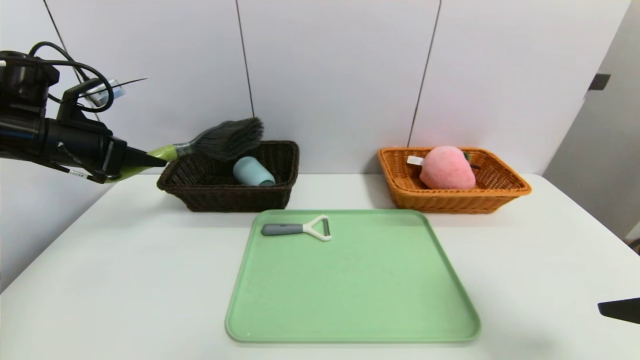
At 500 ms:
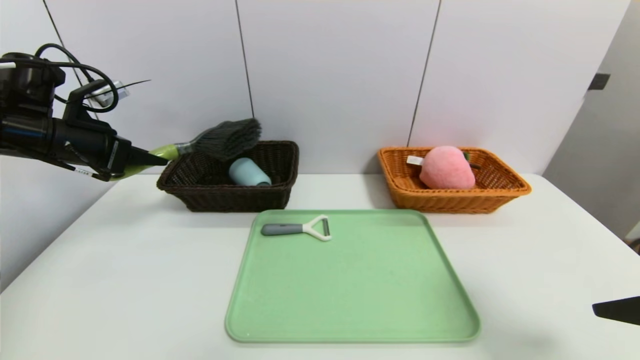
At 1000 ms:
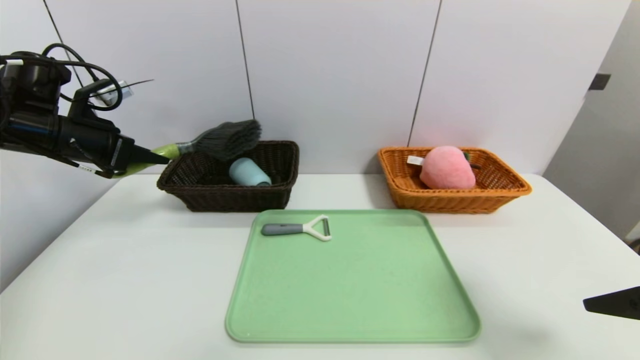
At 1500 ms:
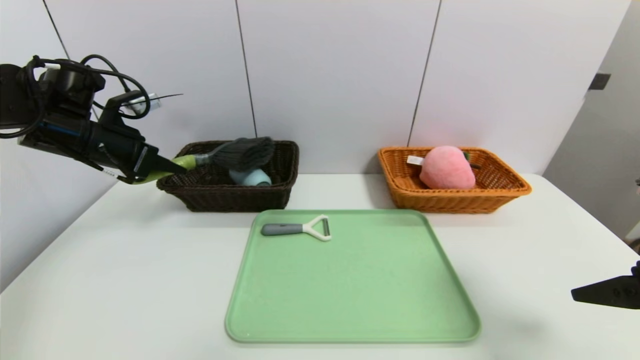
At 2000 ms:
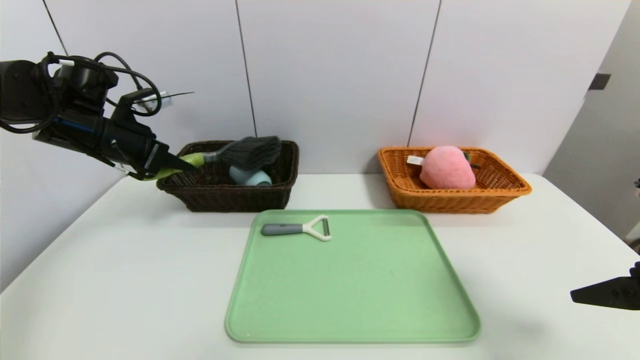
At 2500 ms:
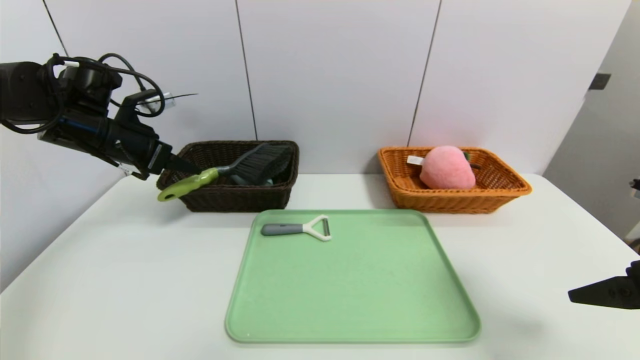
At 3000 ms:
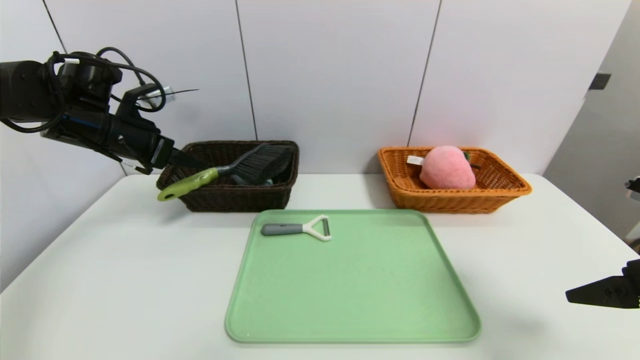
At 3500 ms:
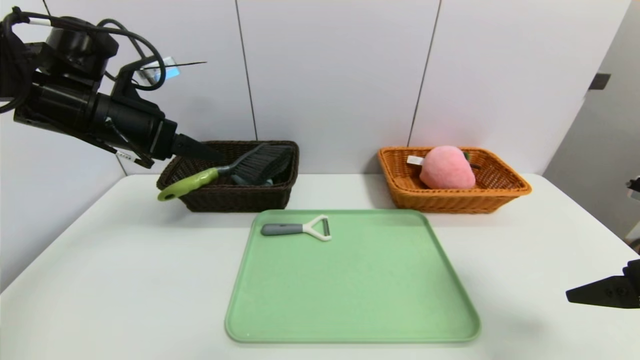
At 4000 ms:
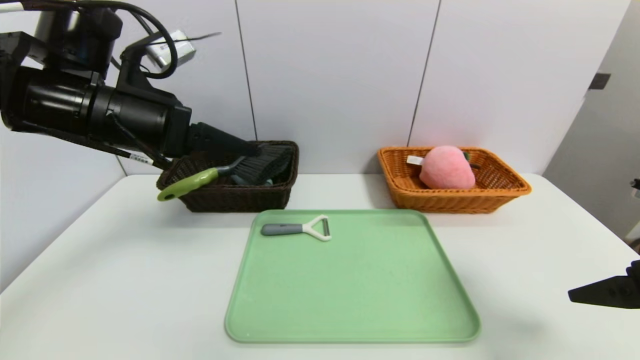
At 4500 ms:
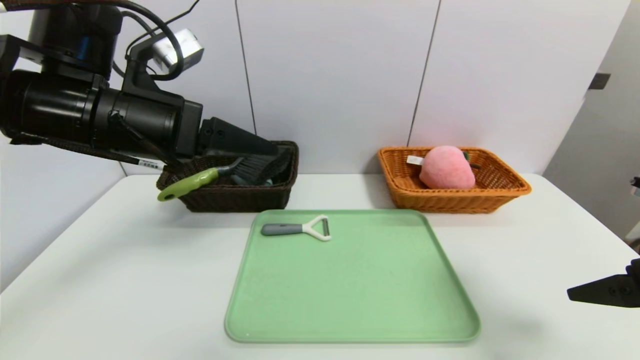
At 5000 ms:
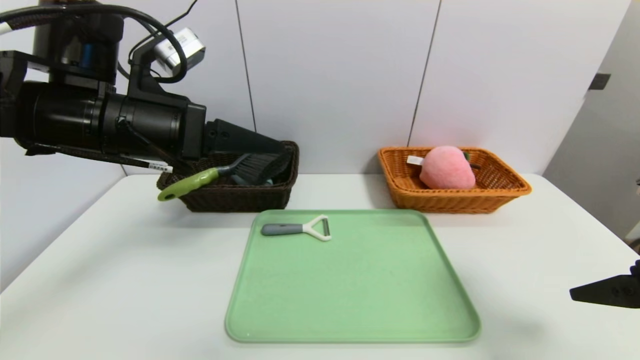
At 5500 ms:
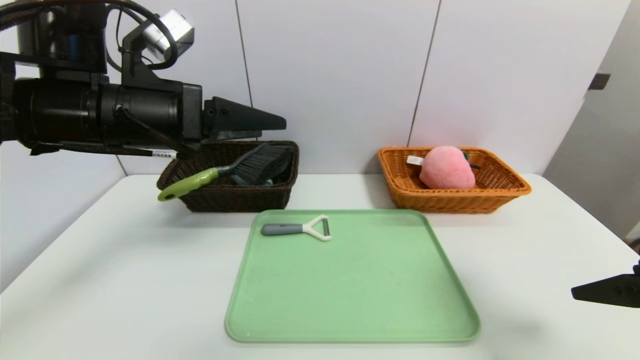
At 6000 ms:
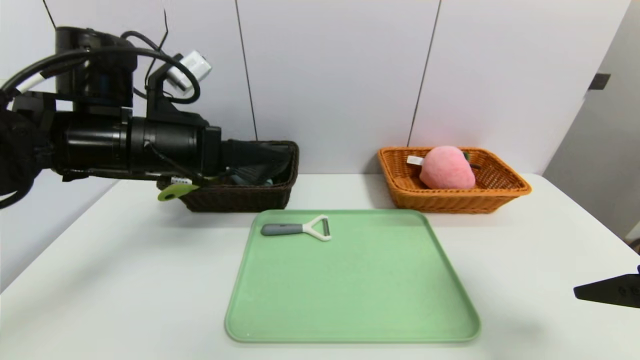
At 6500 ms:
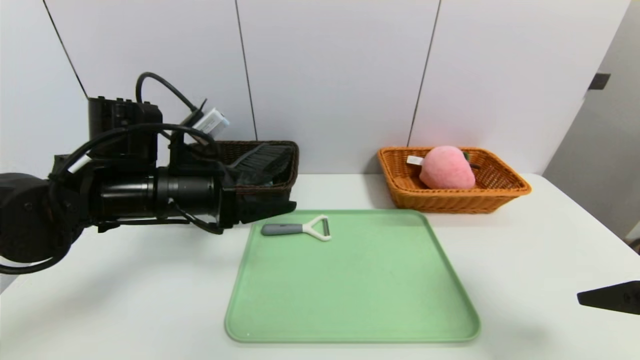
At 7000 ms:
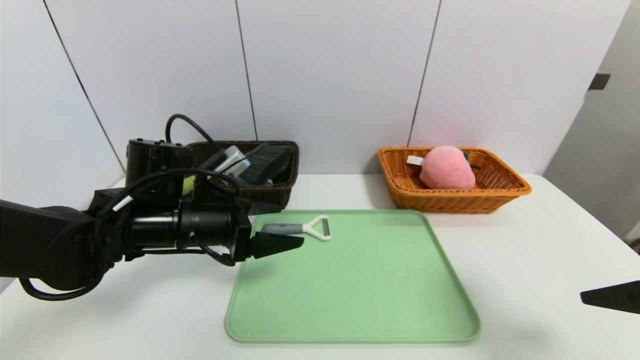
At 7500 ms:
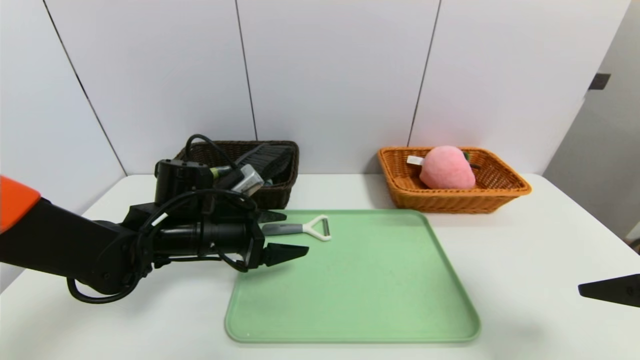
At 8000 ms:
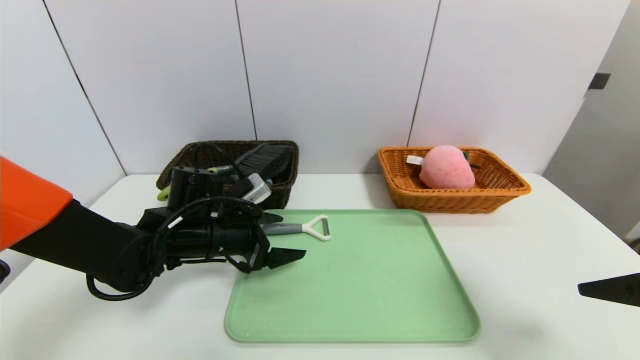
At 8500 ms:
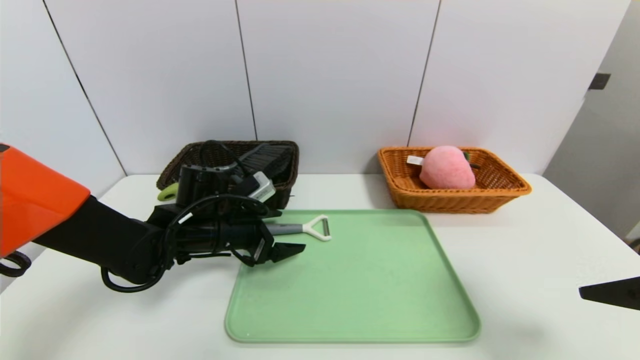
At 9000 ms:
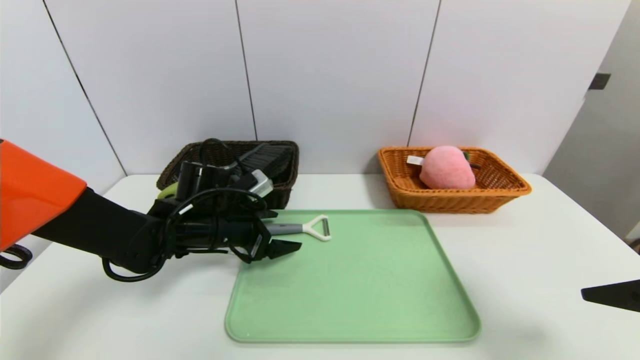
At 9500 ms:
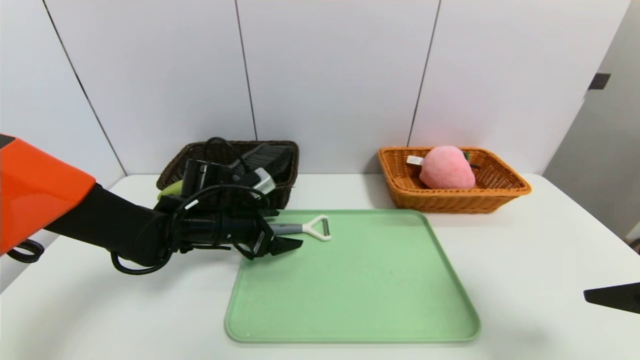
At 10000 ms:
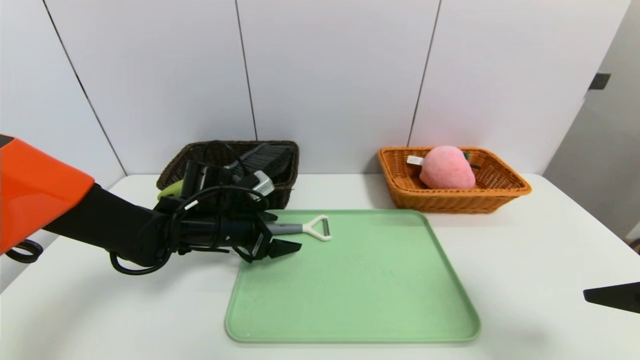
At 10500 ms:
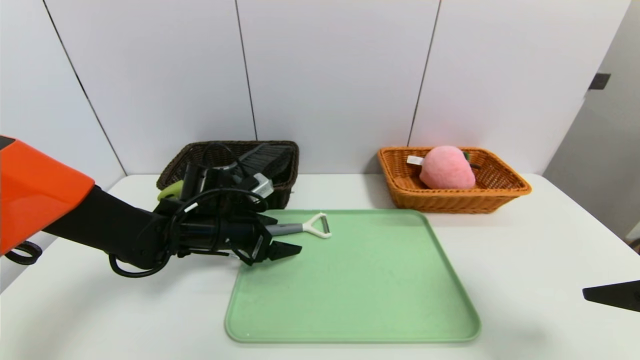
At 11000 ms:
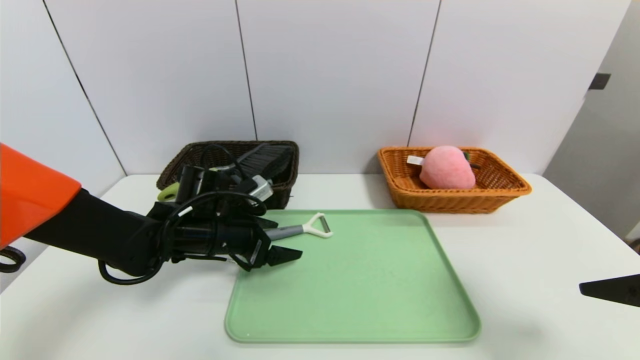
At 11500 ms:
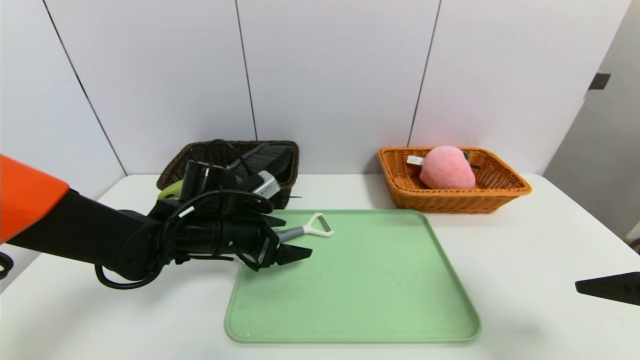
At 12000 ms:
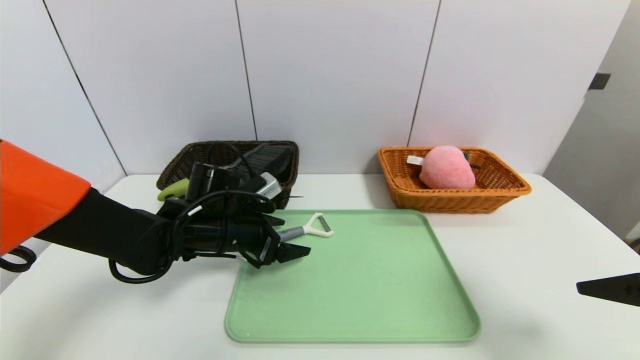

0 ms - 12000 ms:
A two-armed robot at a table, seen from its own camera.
Task of the whole recording: place the food in the right basket with the right gripper, and place the non food items in the left basket with the left gripper.
Step, 0 ms - 2500 ms: Grasp the brush and put it in the left basket.
0 ms - 2000 ms: The left gripper shifts by roughly 5 cm.
2000 ms - 4000 ms: The left gripper travels to the right, backward and upward by approximately 15 cm, and opens up.
4000 ms - 6000 ms: There are only small adjustments of the grippers.
6000 ms - 8000 ms: The left gripper moves downward, roughly 15 cm.
8000 ms - 12000 ms: The grippers make only small movements.

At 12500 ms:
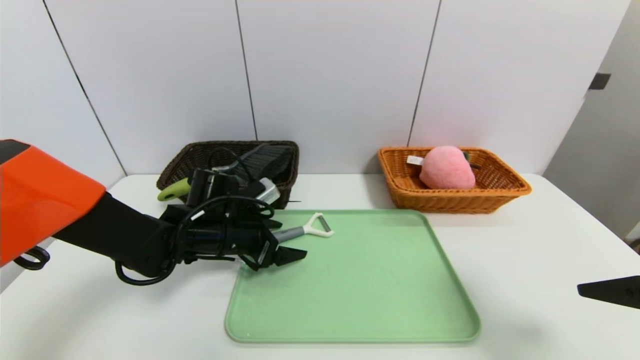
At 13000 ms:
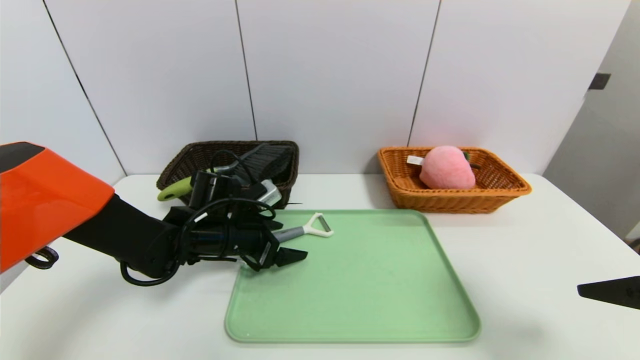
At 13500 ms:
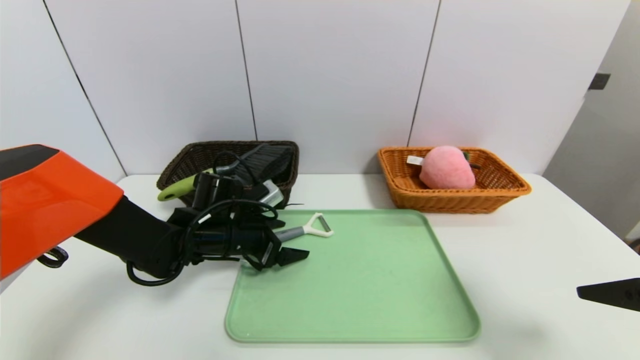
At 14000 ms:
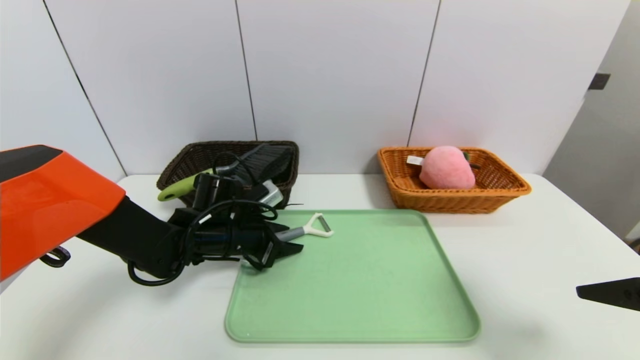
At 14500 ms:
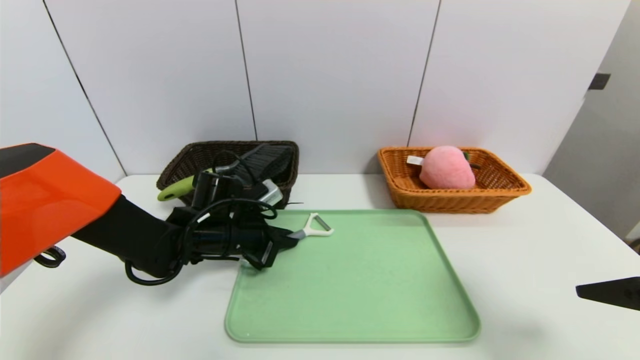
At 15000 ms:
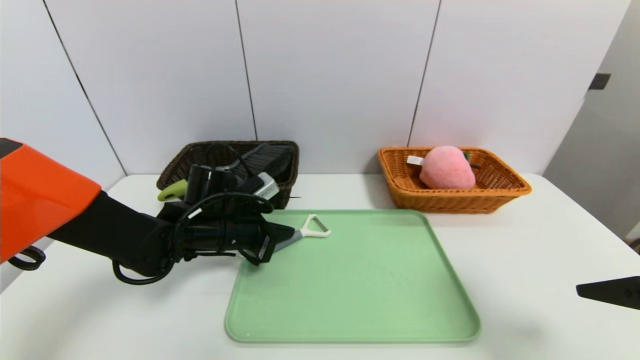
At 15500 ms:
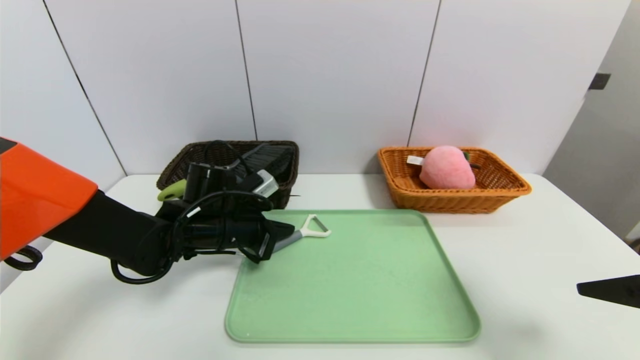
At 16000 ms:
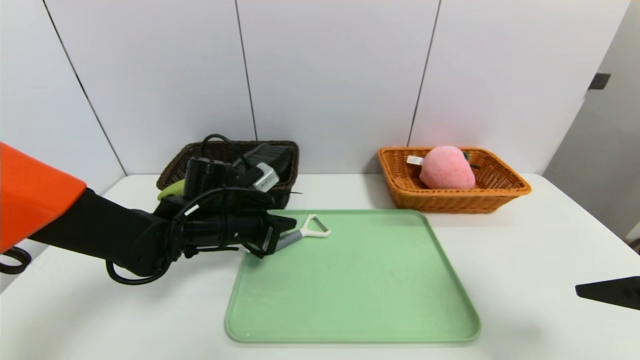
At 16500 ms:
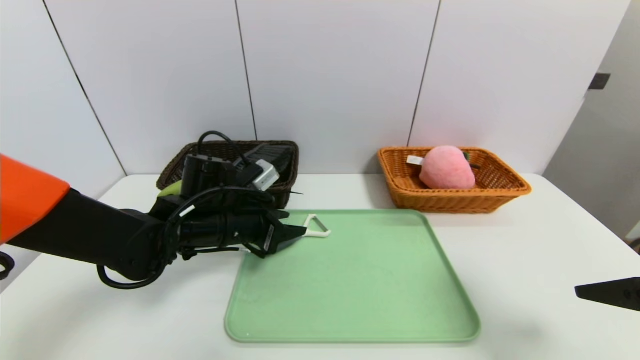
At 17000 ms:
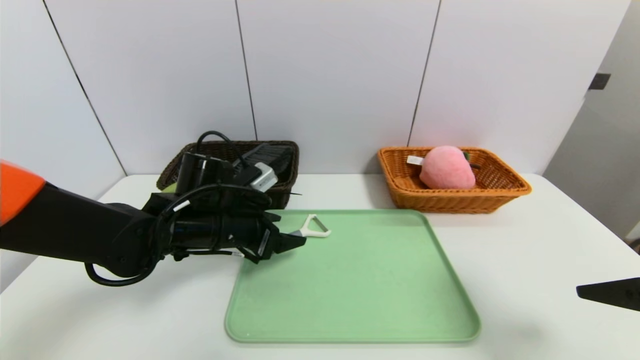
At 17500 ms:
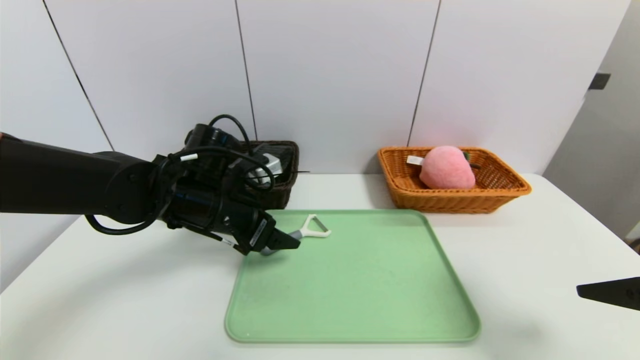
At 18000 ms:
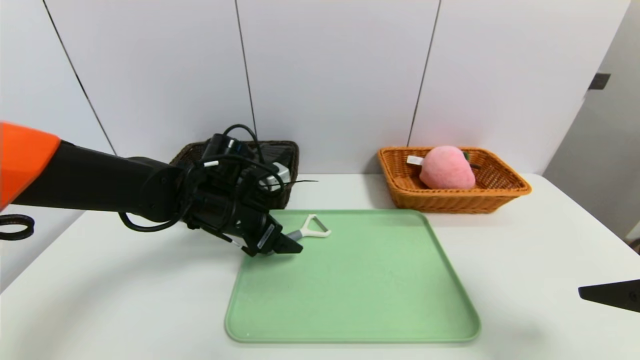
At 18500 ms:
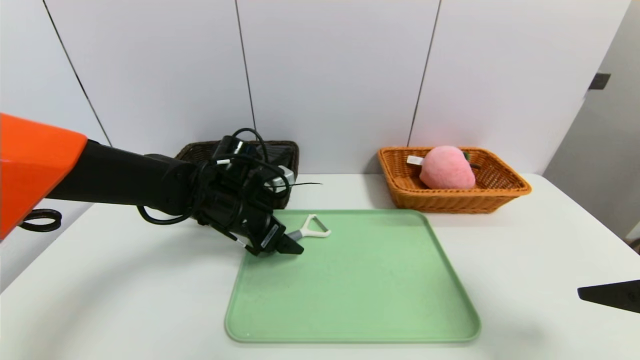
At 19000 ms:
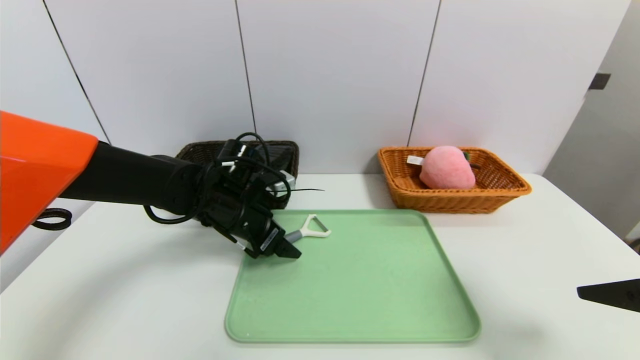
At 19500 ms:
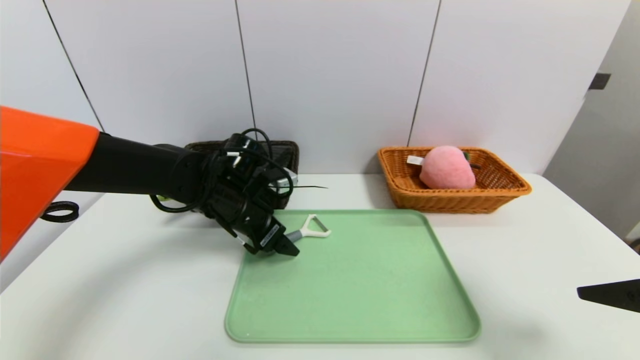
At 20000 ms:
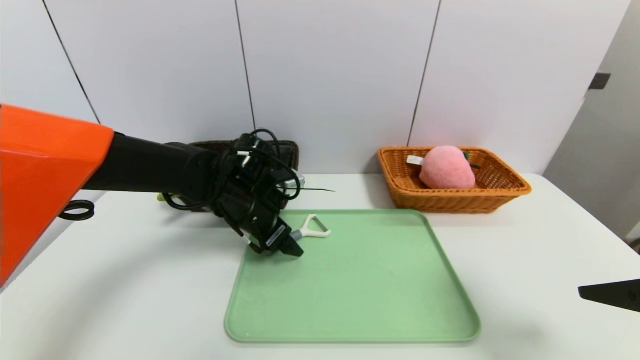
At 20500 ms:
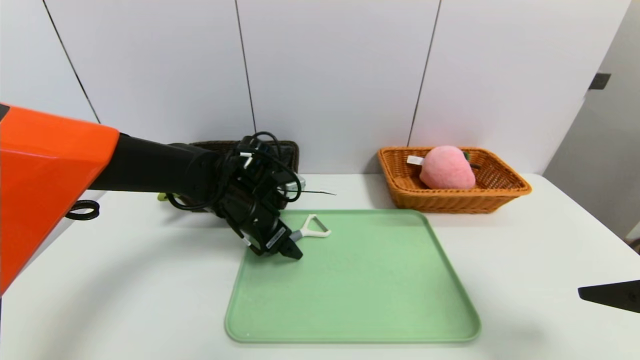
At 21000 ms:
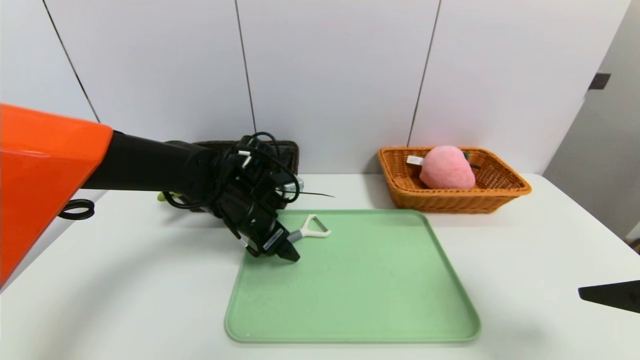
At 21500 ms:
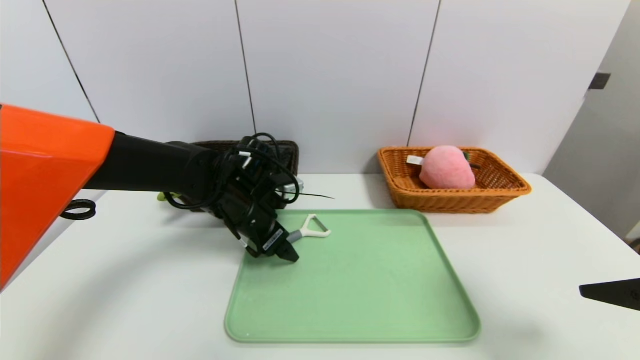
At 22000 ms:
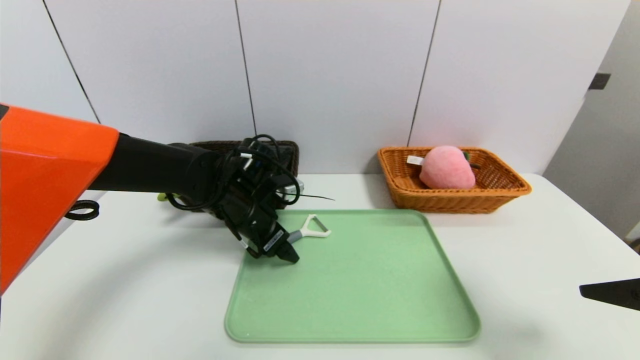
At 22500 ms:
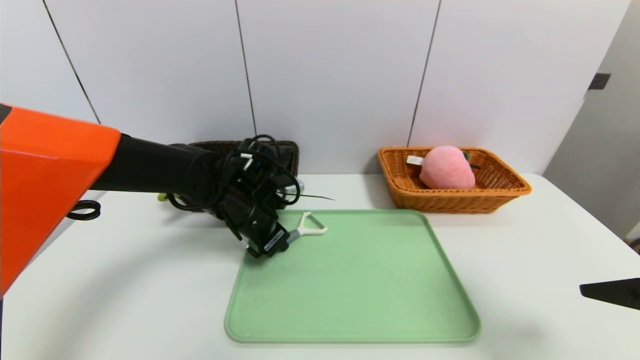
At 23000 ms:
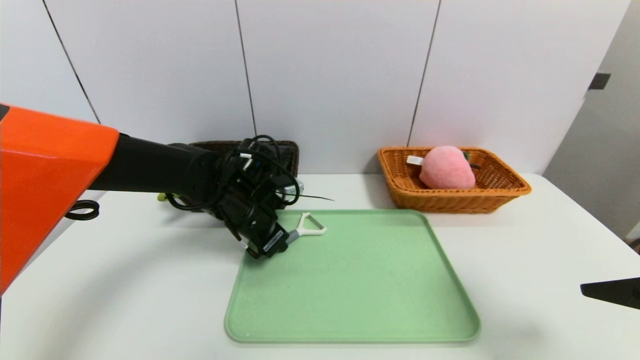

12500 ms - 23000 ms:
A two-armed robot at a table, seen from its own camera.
Task of the whole recording: place the food in the right basket with the right gripper, and place the non food items in the left basket with the left gripper.
12500 ms - 14500 ms: The left gripper closes up.
14500 ms - 16500 ms: The left gripper opens up.
16500 ms - 19000 ms: The left gripper opens its fingers.
19000 ms - 21000 ms: The grippers make only small movements.
21000 ms - 23000 ms: The left gripper closes its fingers.
